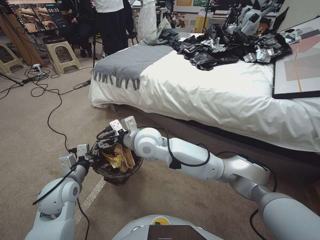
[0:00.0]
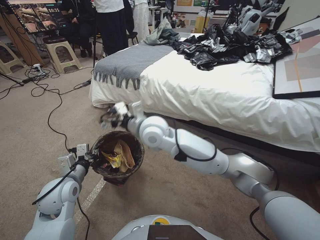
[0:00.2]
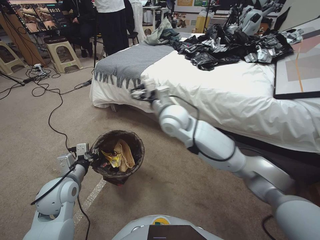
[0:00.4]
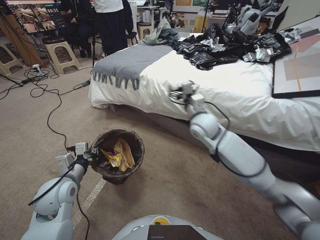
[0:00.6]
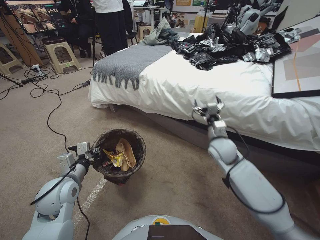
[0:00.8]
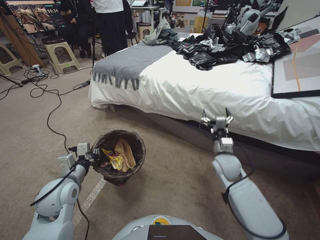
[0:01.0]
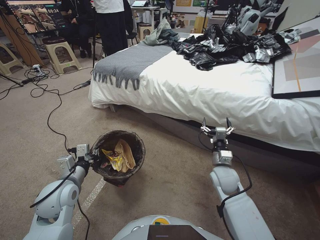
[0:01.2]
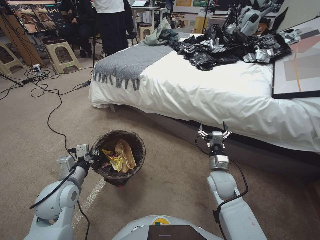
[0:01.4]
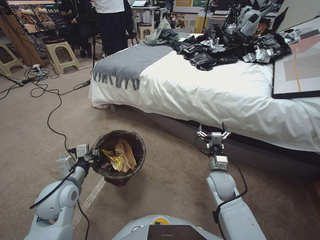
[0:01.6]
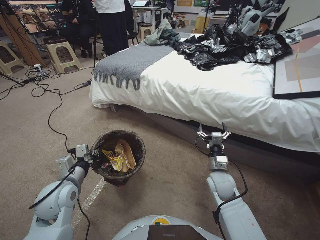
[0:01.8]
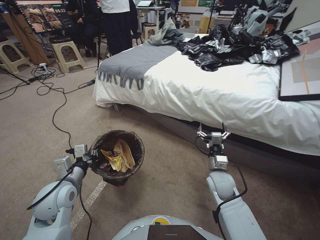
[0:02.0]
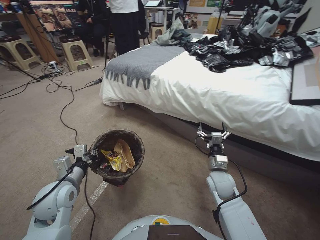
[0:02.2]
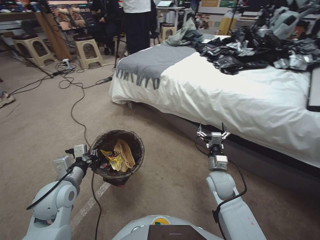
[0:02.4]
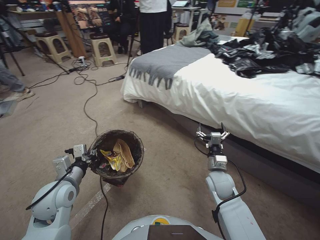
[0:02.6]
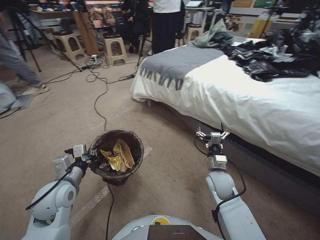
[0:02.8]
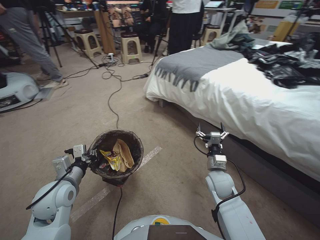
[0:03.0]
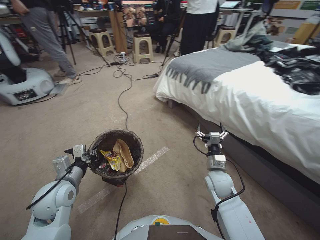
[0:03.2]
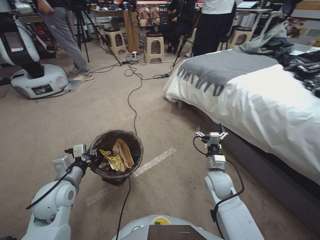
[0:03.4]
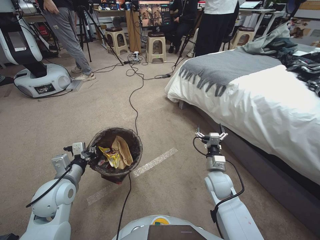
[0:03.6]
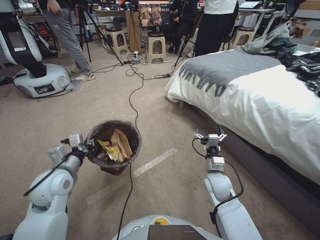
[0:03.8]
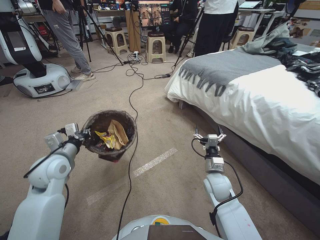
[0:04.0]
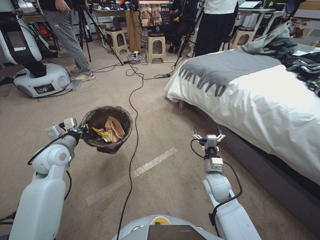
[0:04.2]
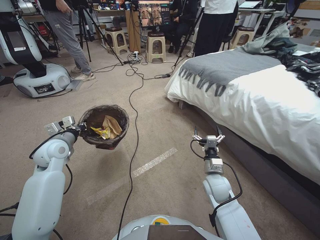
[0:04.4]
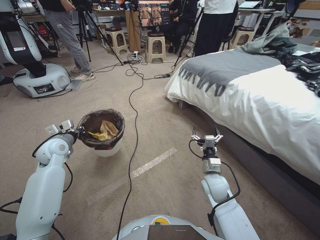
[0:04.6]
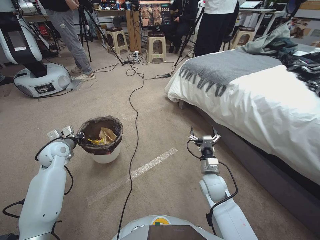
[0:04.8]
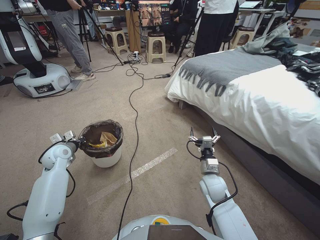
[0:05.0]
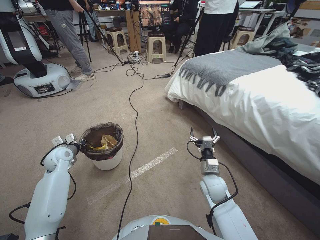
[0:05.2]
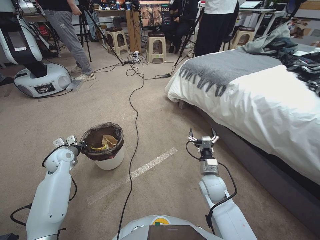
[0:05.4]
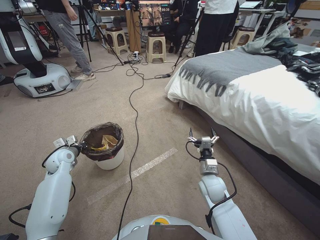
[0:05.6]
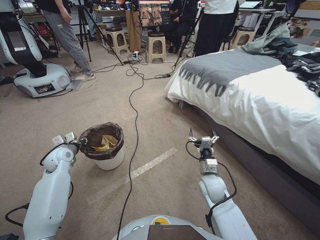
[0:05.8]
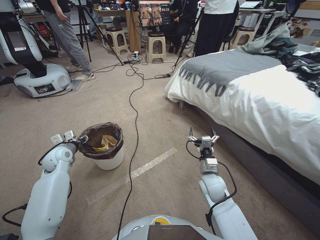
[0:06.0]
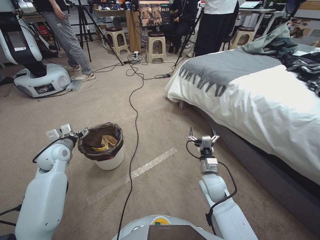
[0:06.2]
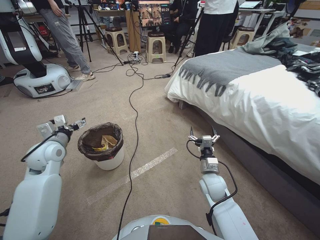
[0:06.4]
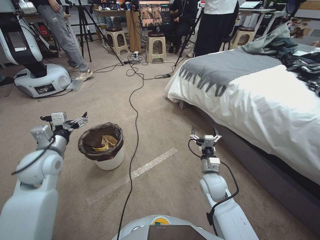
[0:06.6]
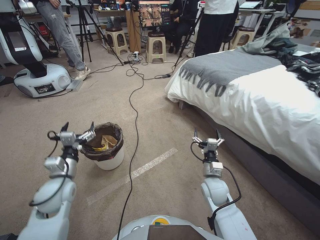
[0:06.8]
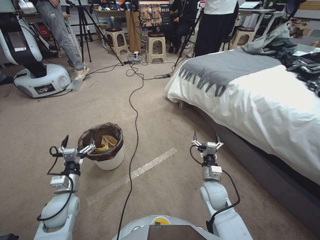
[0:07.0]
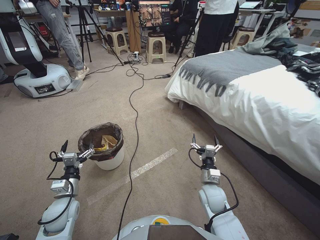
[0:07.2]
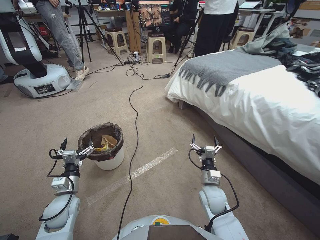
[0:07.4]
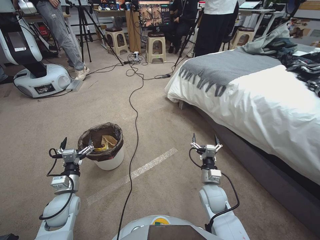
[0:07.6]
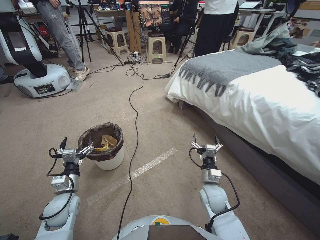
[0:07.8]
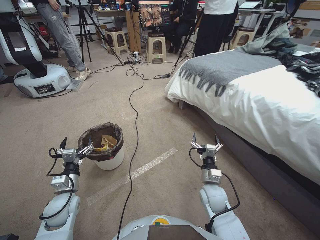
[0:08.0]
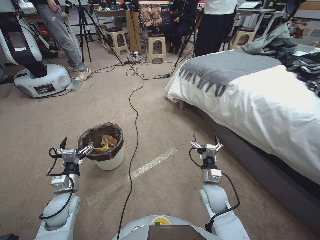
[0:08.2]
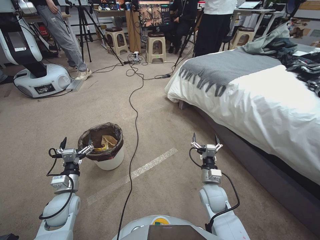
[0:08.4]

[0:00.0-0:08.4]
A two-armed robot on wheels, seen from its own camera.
Task of the whole recording: Pick up the trash bin, then pick up the garbage from the floor and place it into the trash bin.
0:00.0 to 0:01.4: The right gripper heads to the right and downward, covering approximately 35 cm.
0:02.8 to 0:04.2: The left gripper moves forward, roughly 10 cm.
0:04.2 to 0:05.6: The left gripper moves downward, to the left and forward, roughly 15 cm.
0:05.6 to 0:07.0: The left gripper shifts roughly 15 cm backward and to the right, and opens up.
0:07.0 to 0:08.4: The left gripper goes roughly 5 cm downward.

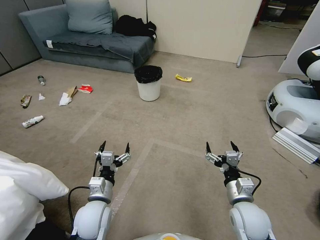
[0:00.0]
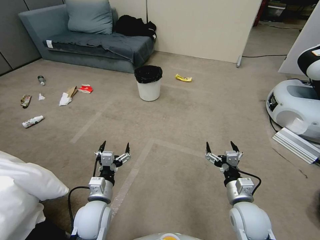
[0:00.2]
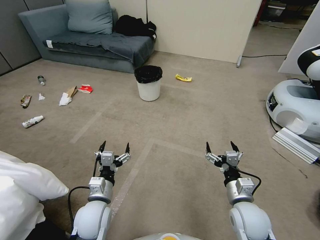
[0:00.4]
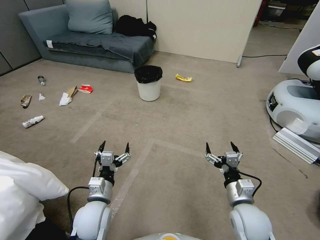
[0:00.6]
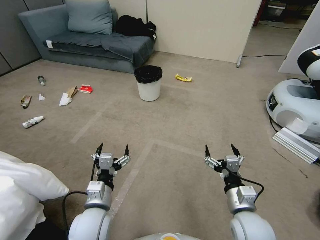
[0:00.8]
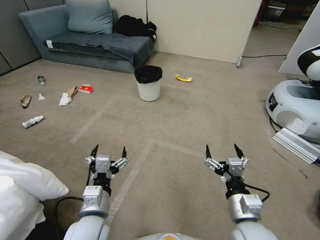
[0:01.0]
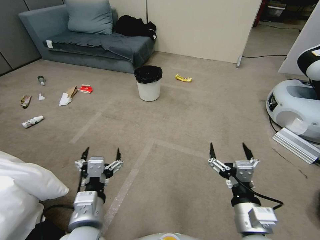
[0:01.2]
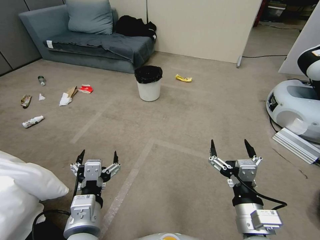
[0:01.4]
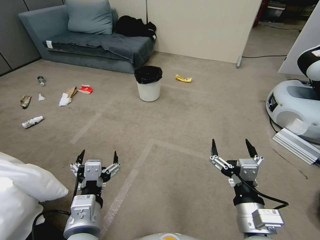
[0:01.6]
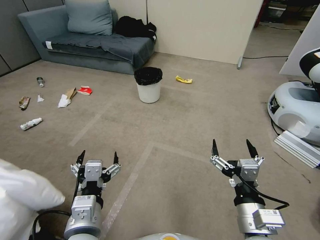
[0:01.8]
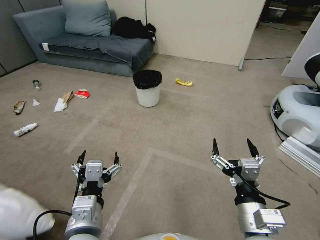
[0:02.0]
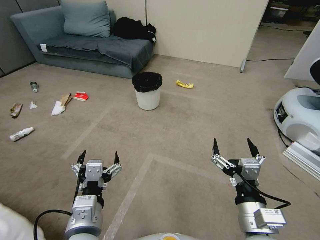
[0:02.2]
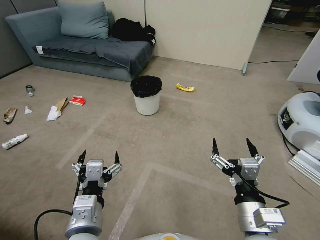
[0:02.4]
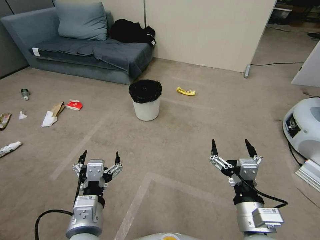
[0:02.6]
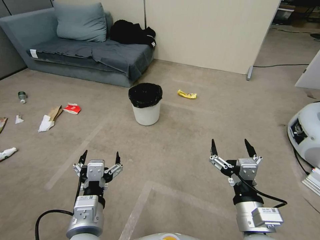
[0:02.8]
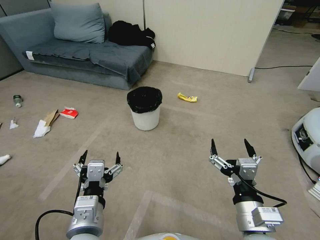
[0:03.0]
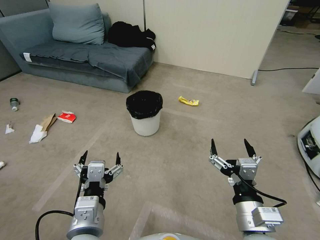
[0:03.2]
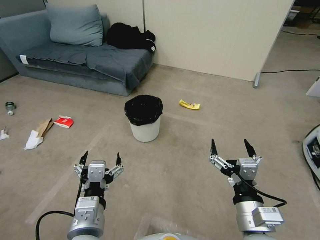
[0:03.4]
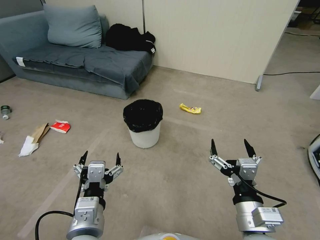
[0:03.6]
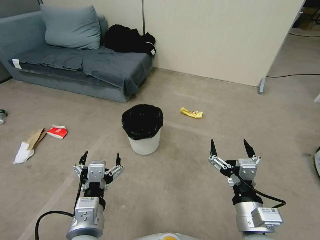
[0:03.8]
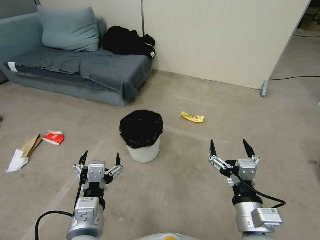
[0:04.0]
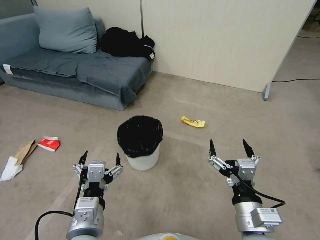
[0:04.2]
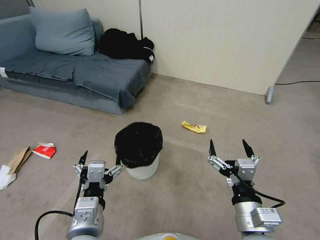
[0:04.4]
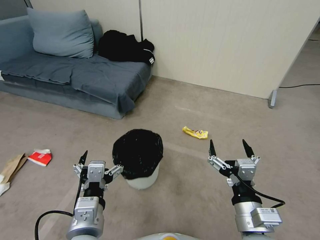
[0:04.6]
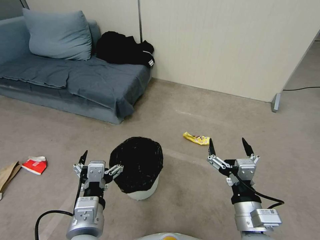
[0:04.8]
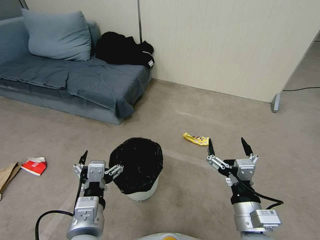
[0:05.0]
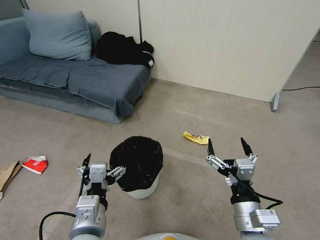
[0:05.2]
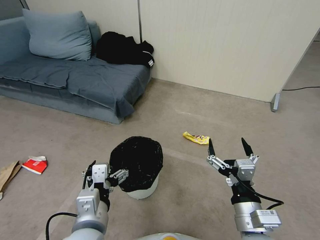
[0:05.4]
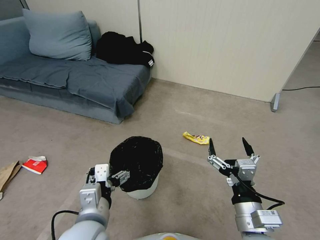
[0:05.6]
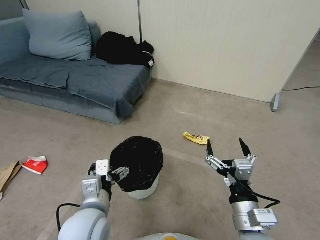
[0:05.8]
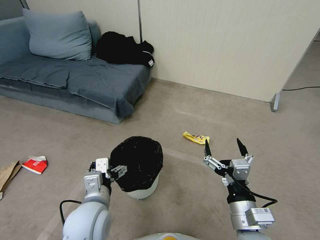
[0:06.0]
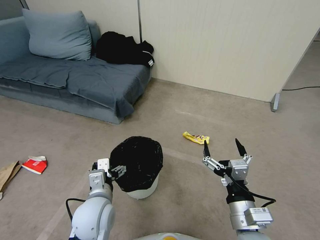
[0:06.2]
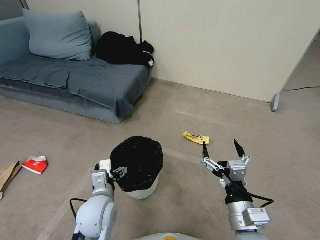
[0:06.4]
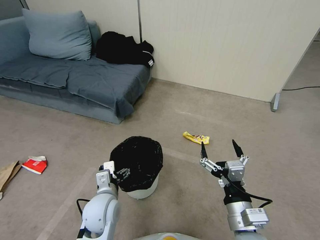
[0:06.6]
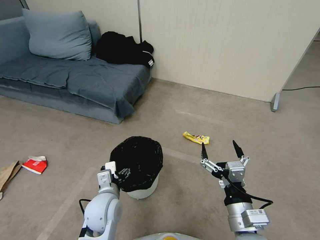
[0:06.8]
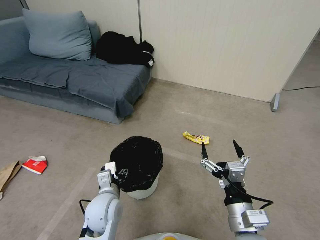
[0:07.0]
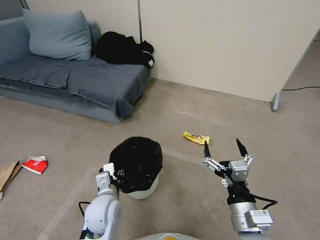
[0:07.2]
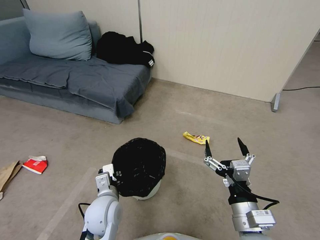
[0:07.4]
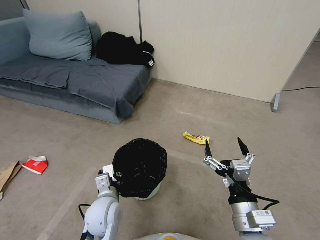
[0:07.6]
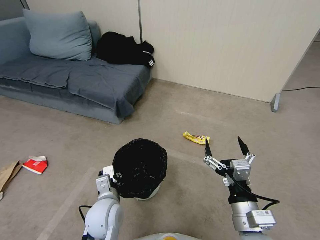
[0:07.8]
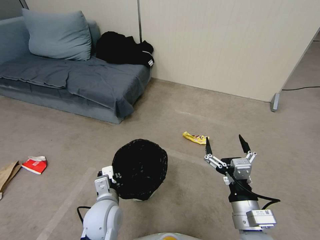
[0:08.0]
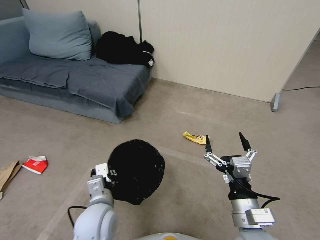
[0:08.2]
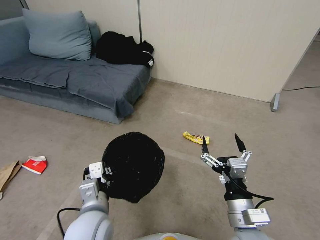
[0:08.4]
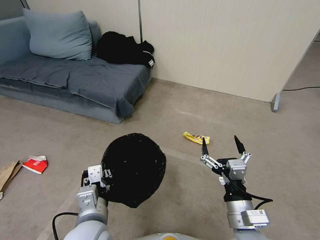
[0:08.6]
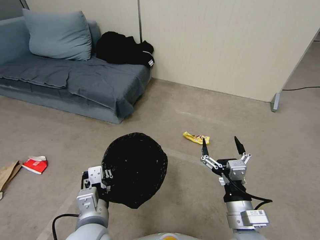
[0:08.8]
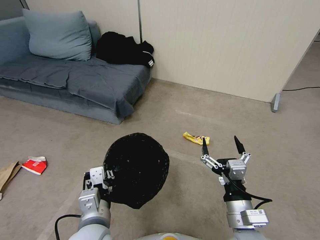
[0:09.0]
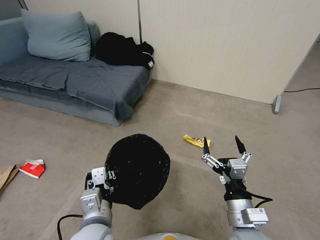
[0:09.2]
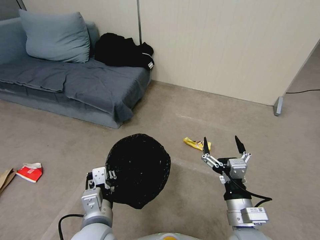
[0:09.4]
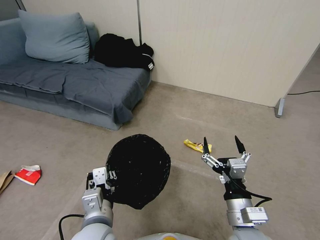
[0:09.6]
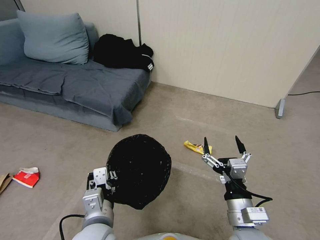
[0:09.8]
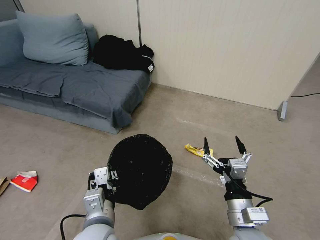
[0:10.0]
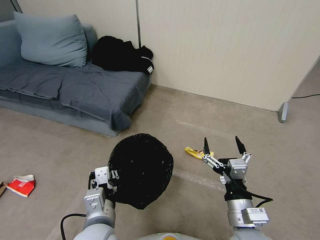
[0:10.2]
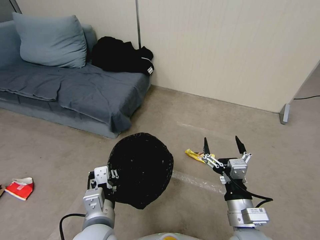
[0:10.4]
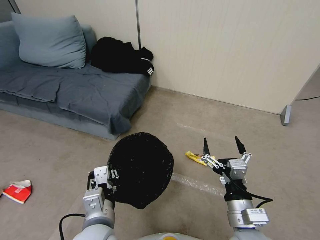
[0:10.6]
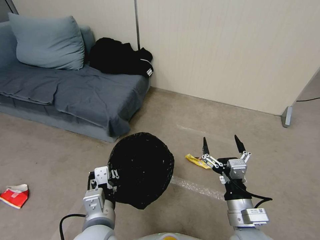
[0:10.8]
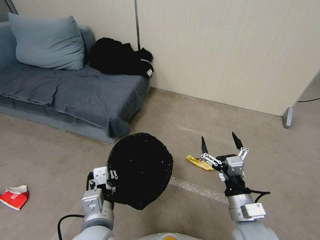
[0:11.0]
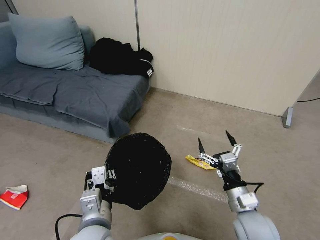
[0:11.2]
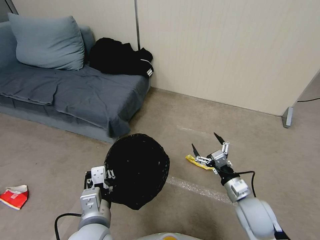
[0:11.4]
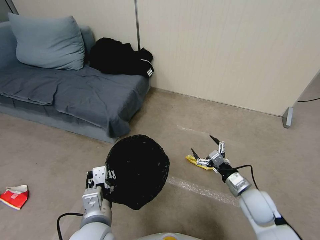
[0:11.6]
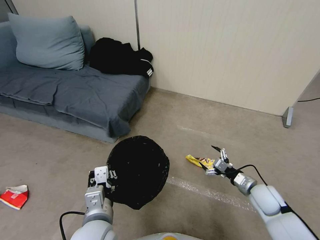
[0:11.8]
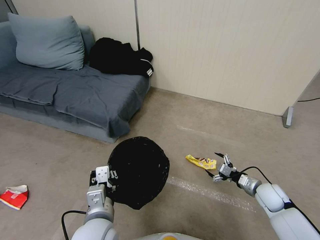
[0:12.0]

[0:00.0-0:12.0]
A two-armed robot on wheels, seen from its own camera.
Task of the whole recording: Pick up the trash bin, then pick up the garbage from the floor and place it into the trash bin.
0:04.4 to 0:06.0: The left gripper travels forward by approximately 5 cm.
0:06.0 to 0:07.6: The left gripper goes some 10 cm downward, and closes.
0:07.6 to 0:09.0: The left gripper goes approximately 10 cm upward and backward.
0:09.0 to 0:10.4: Neither gripper changes place.
0:10.4 to 0:12.0: The right gripper heads to the right, forward and downward, covering approximately 30 cm.

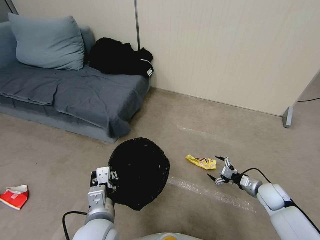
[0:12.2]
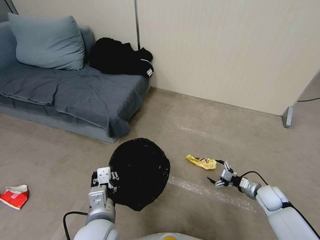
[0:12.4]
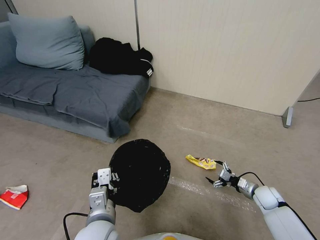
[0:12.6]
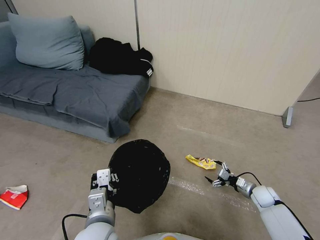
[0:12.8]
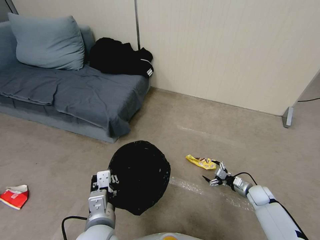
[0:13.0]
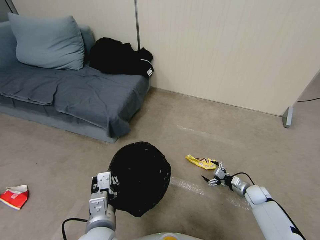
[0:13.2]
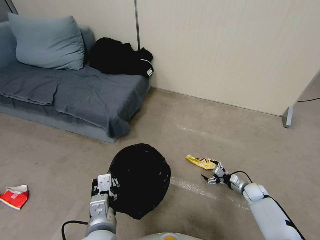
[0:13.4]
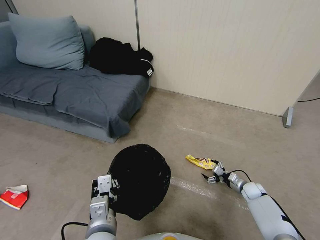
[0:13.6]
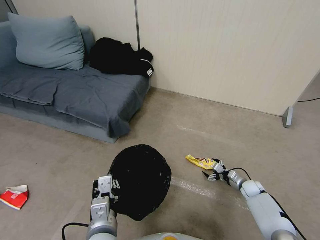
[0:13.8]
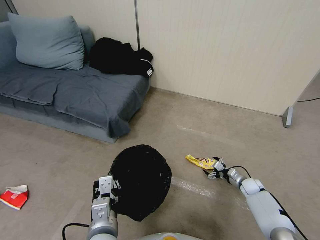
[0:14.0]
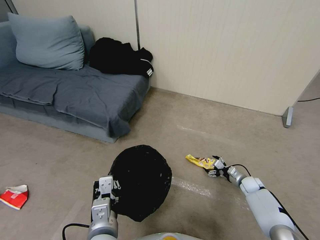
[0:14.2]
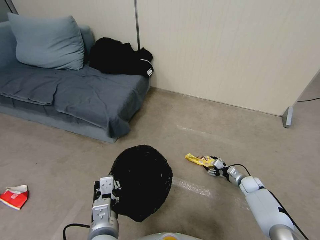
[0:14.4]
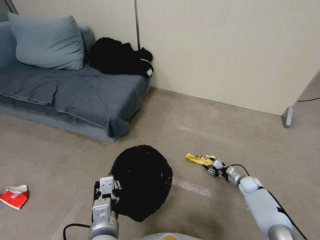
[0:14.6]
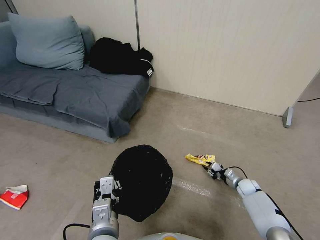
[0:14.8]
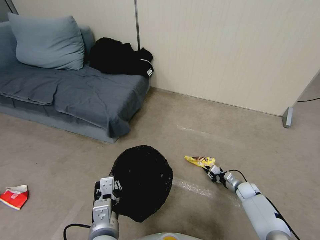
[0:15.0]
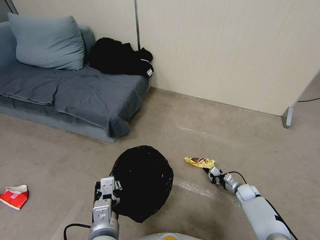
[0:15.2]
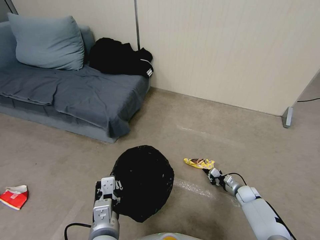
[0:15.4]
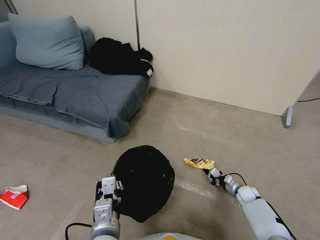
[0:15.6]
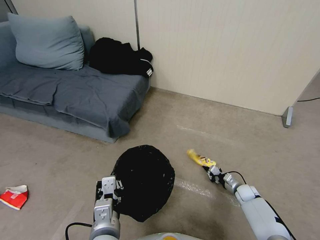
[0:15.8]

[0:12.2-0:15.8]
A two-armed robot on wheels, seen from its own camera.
Task of the whole recording: Pick up the trash bin, then pick up the garbage from the floor and place it into the trash bin.
0:12.2 to 0:14.0: The right gripper moves downward and forward, some 10 cm.
0:14.0 to 0:15.8: The right gripper closes its fingers.
